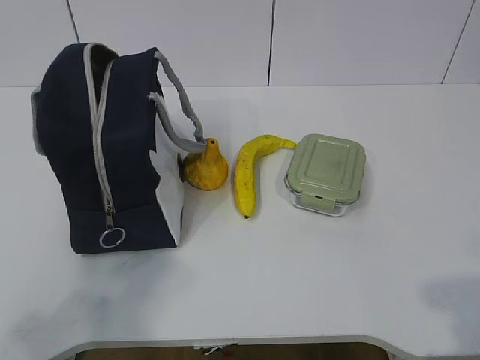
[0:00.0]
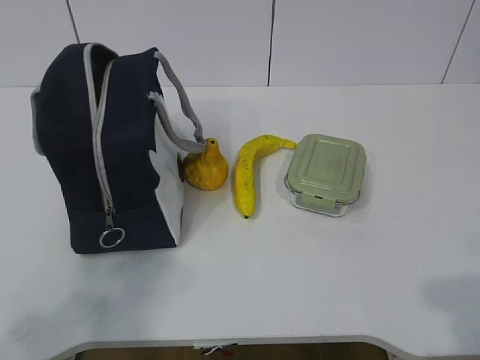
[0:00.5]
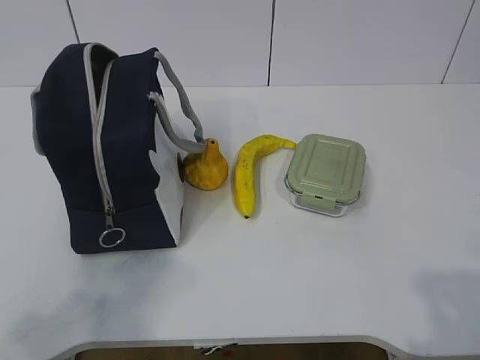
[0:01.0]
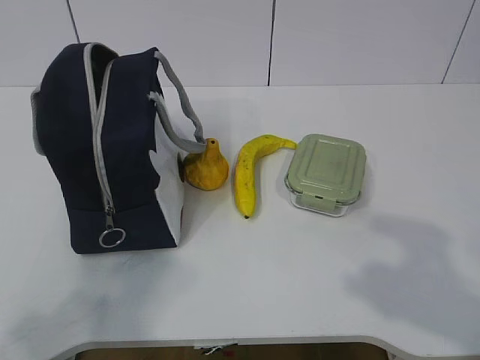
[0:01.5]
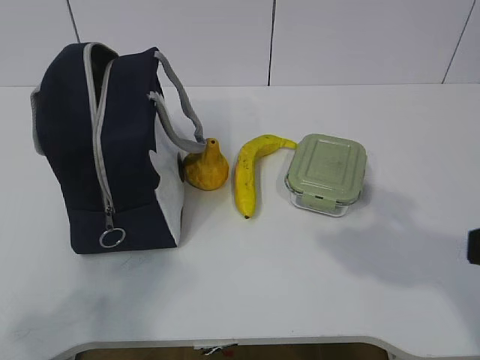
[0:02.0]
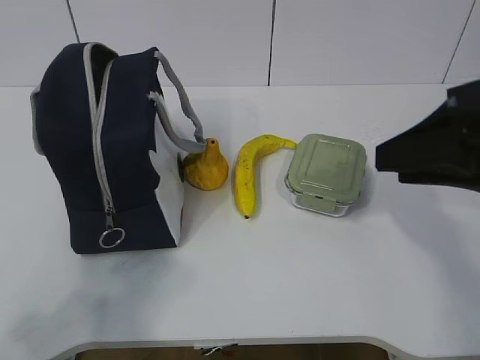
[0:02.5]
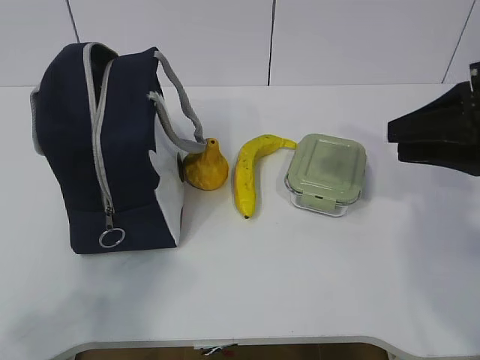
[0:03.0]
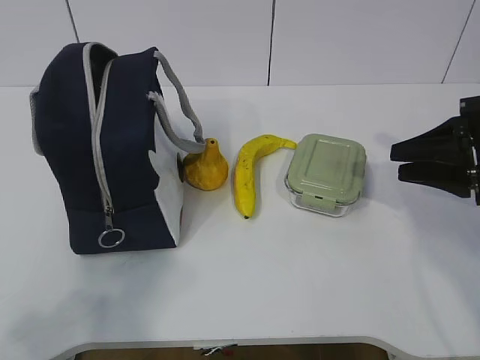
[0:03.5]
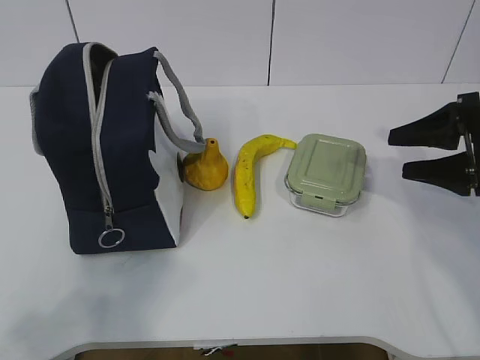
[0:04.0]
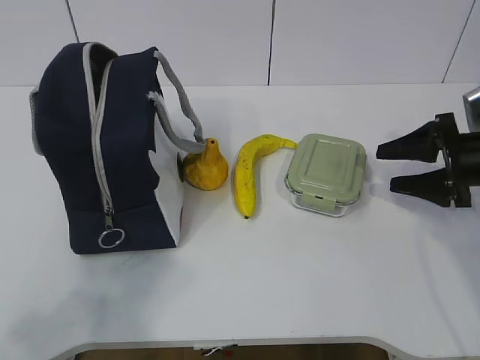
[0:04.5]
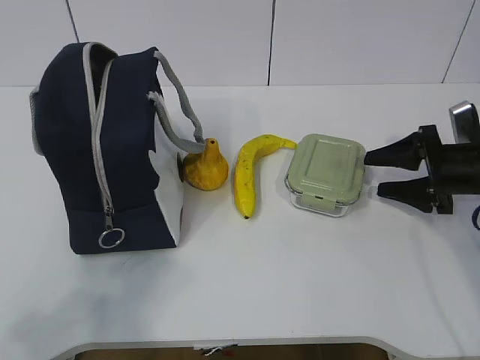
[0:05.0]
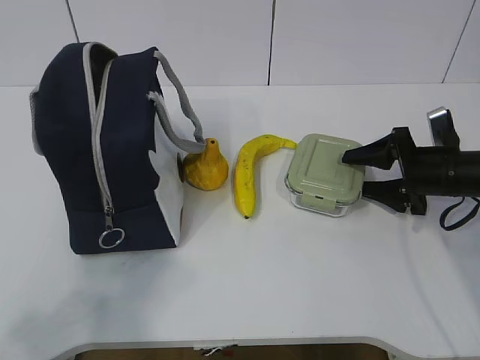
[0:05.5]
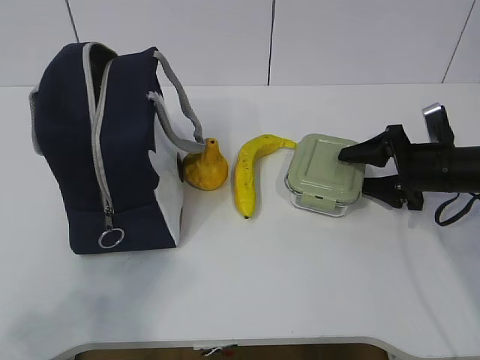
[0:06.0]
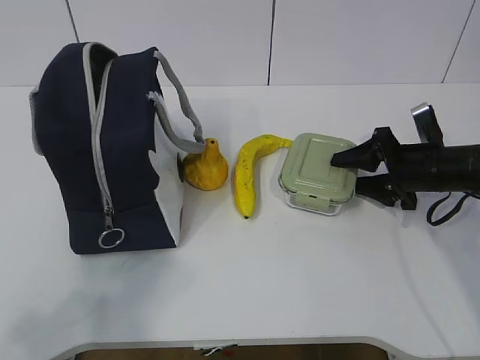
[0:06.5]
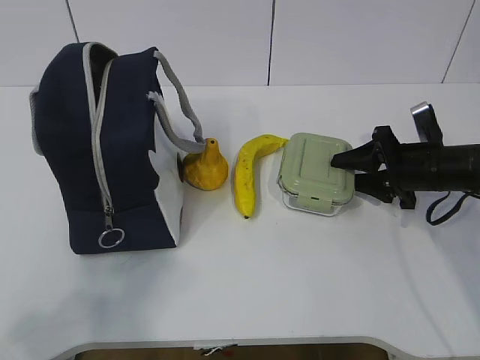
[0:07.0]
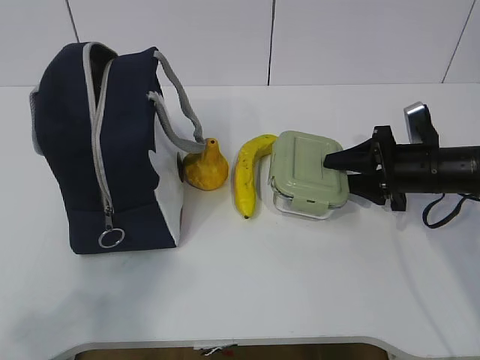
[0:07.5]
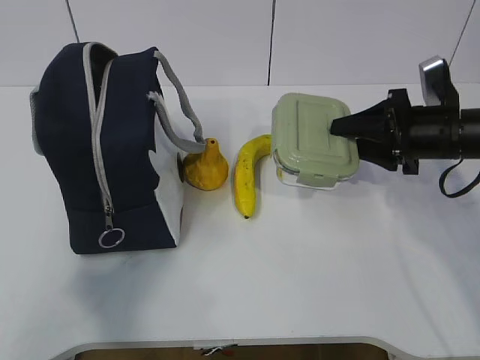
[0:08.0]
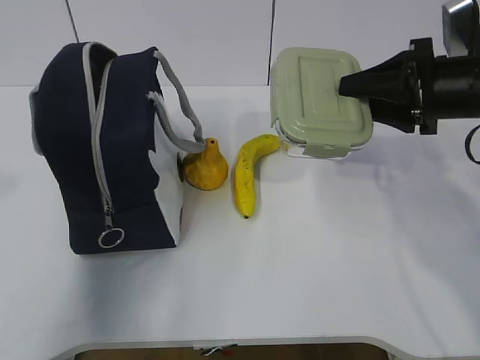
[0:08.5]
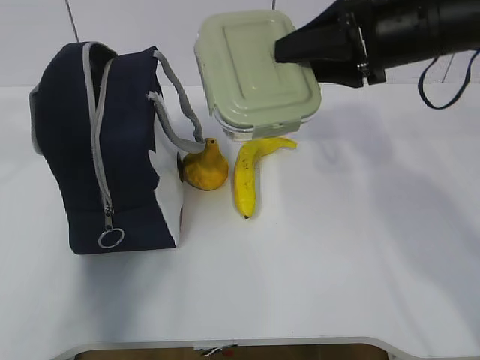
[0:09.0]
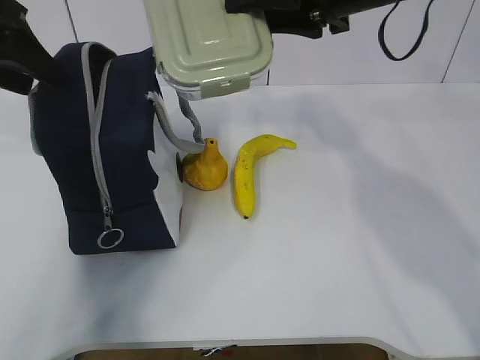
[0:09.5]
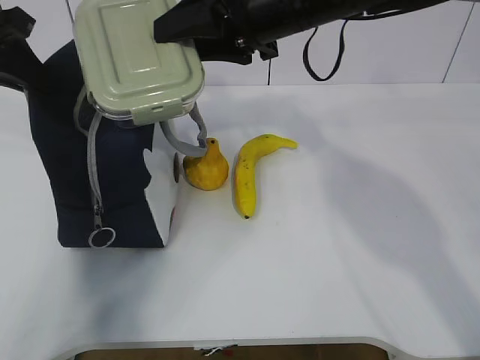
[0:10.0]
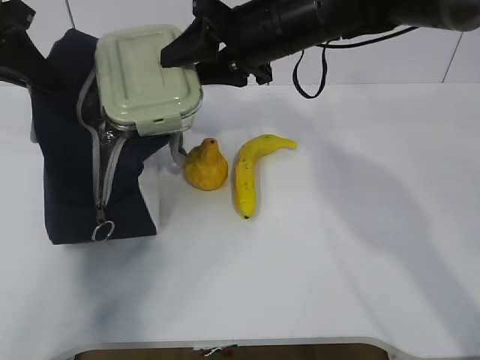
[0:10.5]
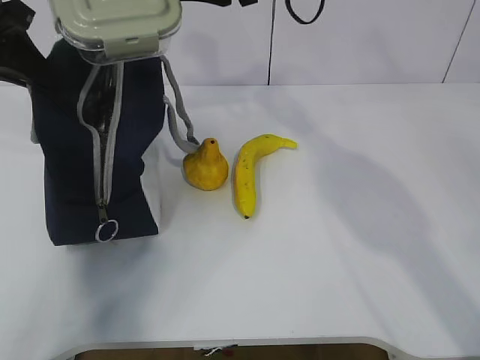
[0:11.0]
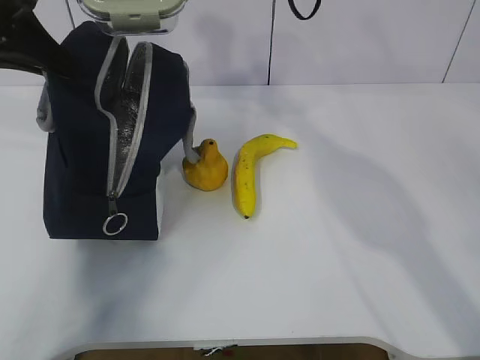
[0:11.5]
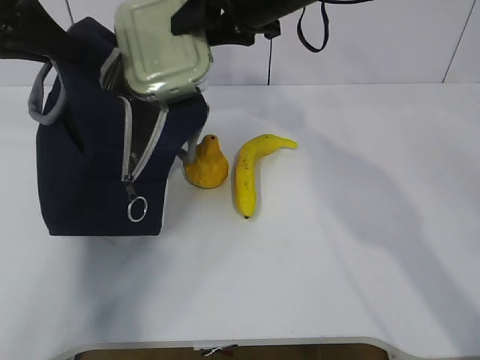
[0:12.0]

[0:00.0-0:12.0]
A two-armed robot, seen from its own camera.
Step, 0:00.0 to 0:05.5: Grab the lunch box with your right hand.
Step, 0:06.5 to 0:08.0: Grab the lunch bag with your left hand.
0:02.0 to 0:04.0: The right gripper heads forward and downward, covering approximately 25 cm, and opens its fingers.
0:04.0 to 0:06.0: The right gripper shifts approximately 10 cm downward and forward.
0:06.0 to 0:08.0: The right gripper is displaced upward by roughly 5 cm.
0:08.0 to 0:10.0: The right gripper heads to the left and upward, covering some 25 cm, while the left gripper travels forward by roughly 35 cm, and closes up.
0:10.0 to 0:12.0: The right gripper swings up and down, about 10 cm each way, with 2 reversals.

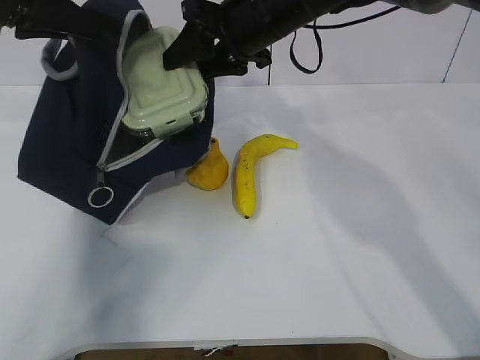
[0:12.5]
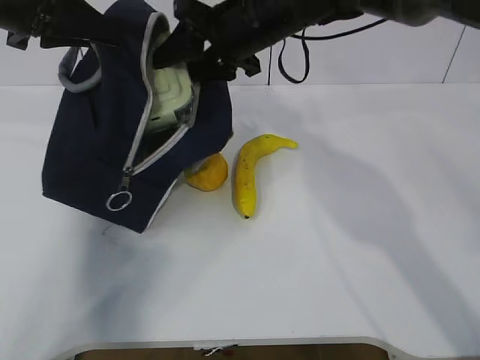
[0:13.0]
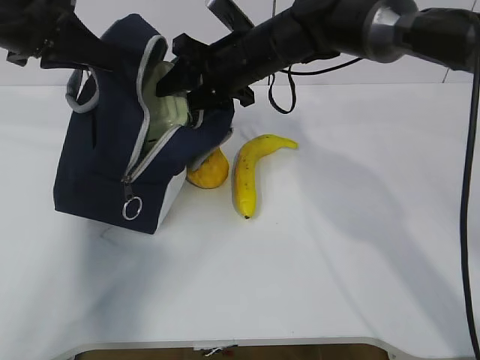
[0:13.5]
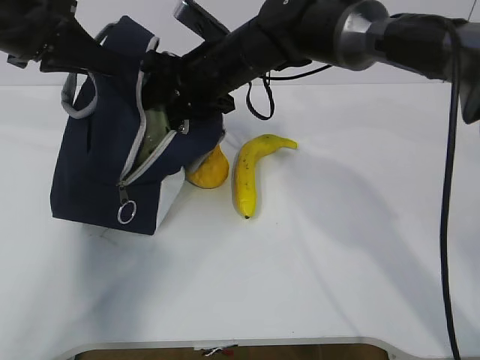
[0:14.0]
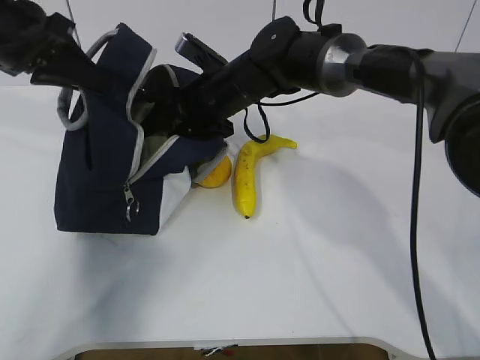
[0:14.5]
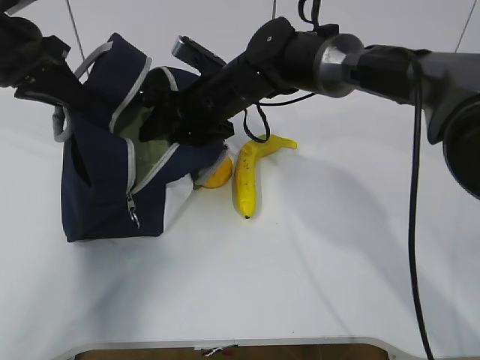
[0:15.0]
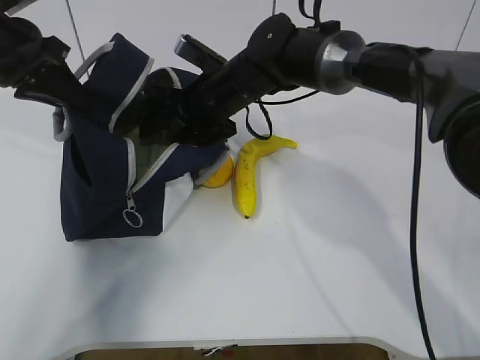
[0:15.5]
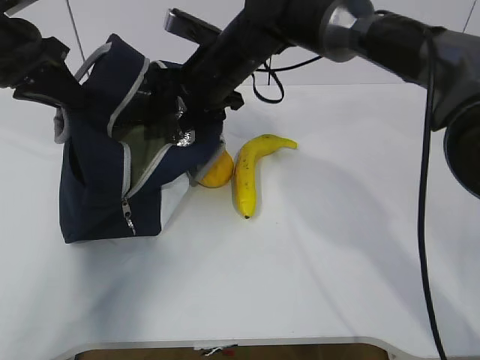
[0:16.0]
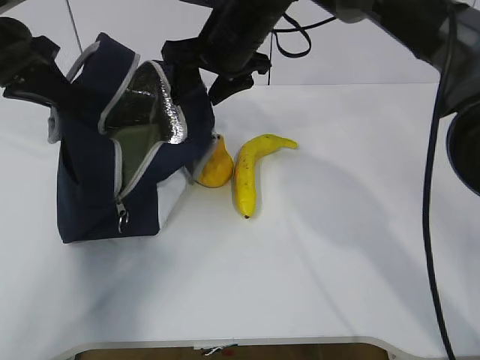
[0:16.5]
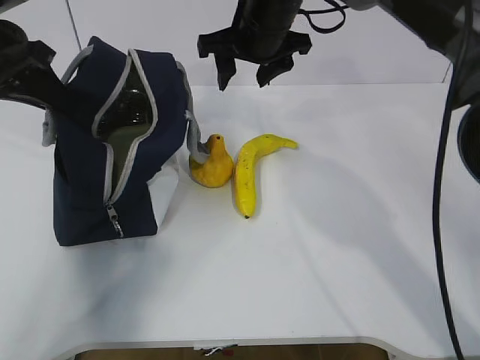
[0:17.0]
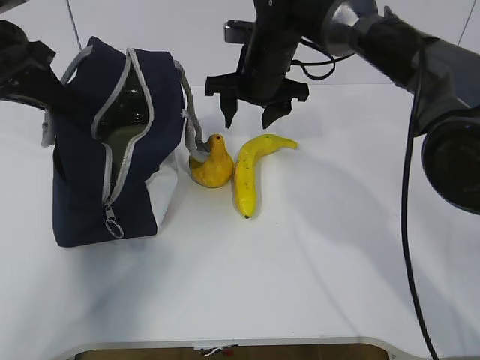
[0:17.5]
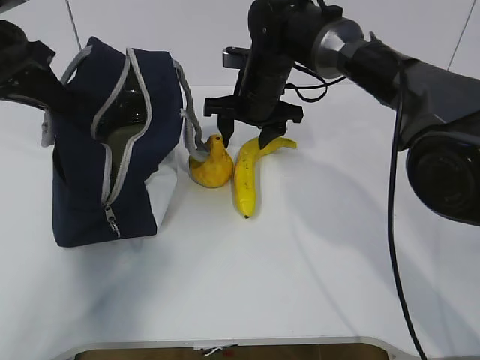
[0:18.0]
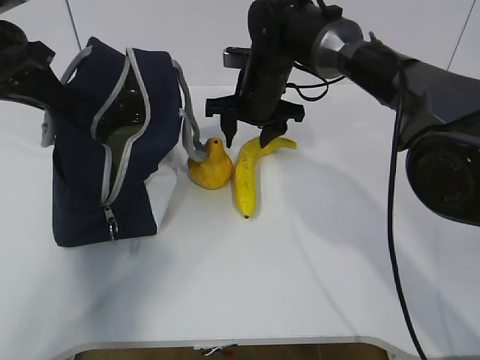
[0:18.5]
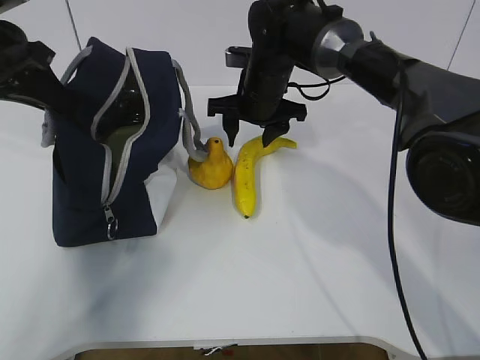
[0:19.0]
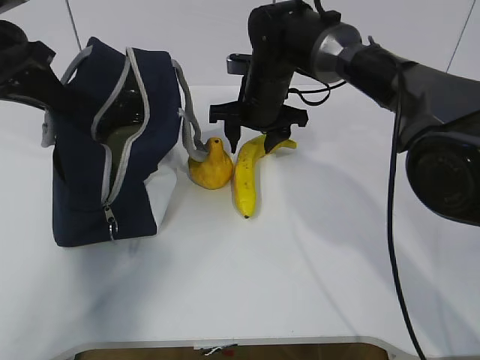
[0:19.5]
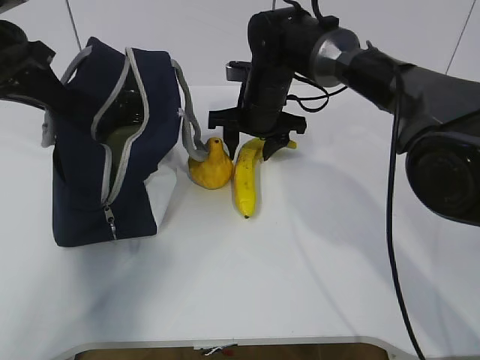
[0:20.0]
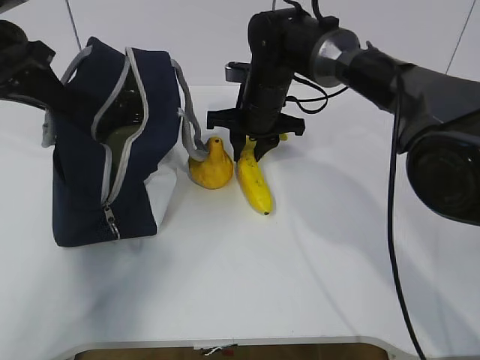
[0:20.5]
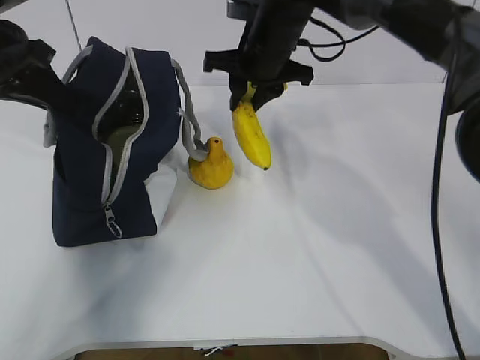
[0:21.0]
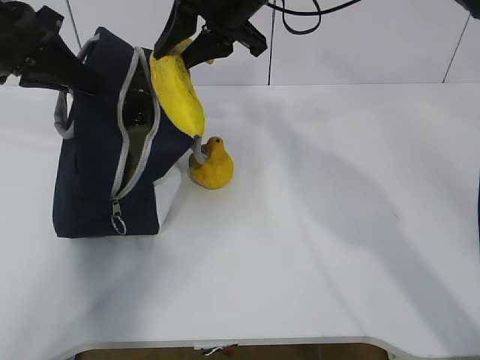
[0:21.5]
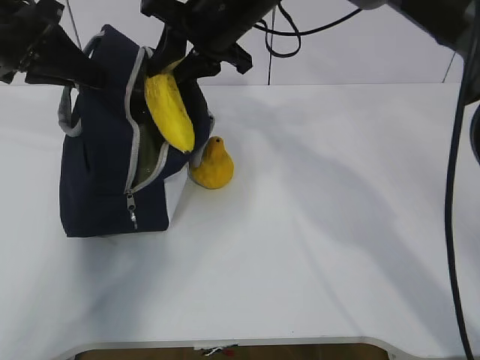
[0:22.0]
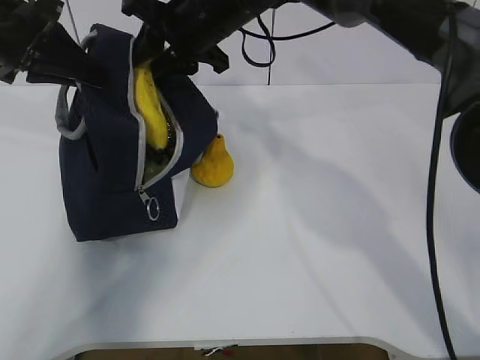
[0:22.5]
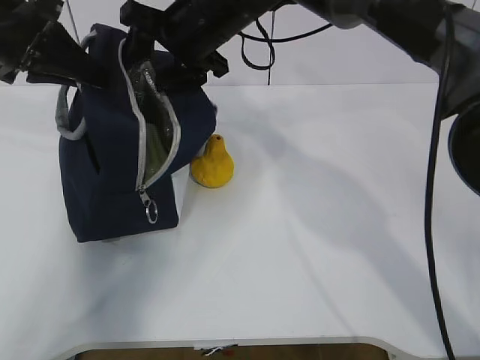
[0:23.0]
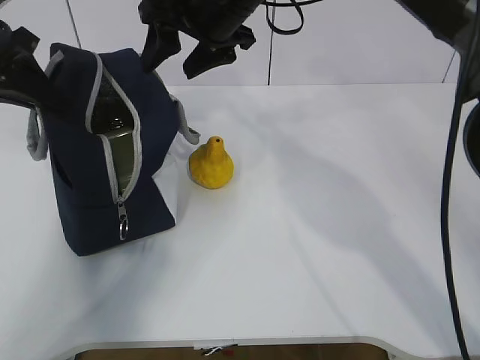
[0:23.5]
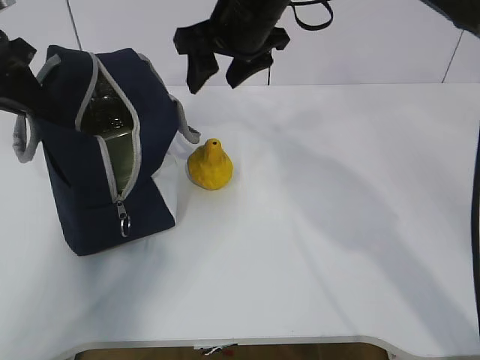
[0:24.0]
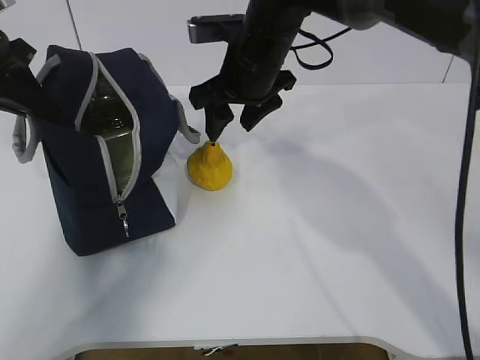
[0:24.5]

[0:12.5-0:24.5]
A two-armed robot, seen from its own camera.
Step, 0:13.5 to 0:17.0: Grab the banana with your right hand.
Step, 0:17.5 to 0:19.0: Place it into the bag with your right hand.
Step, 0:19.5 to 0:21.5: Grab the pear with your right hand.
Step, 0:22.0 to 0:23.5: Secure the lunch bag with your left hand.
0:12.5 to 0:14.5: The right gripper moves downward and to the left, approximately 10 cm.
0:14.5 to 0:16.5: The right gripper shifts some 10 cm upward.
0:16.5 to 0:18.5: The right gripper travels downward by roughly 10 cm.
0:18.5 to 0:20.5: The right gripper closes up.
0:20.5 to 0:22.5: The right gripper goes roughly 15 cm upward and to the left.
0:22.5 to 0:24.5: The right gripper changes place by roughly 5 cm, and opens its fingers.

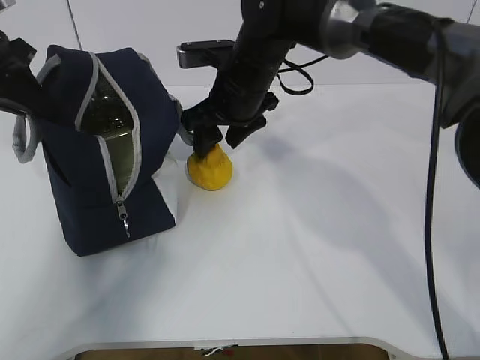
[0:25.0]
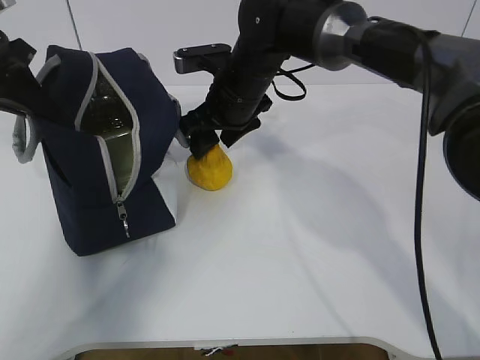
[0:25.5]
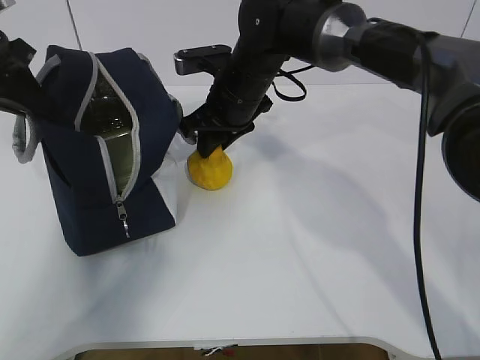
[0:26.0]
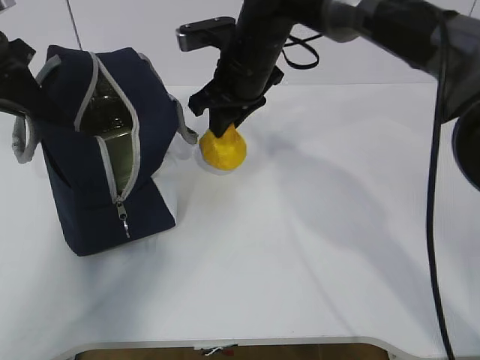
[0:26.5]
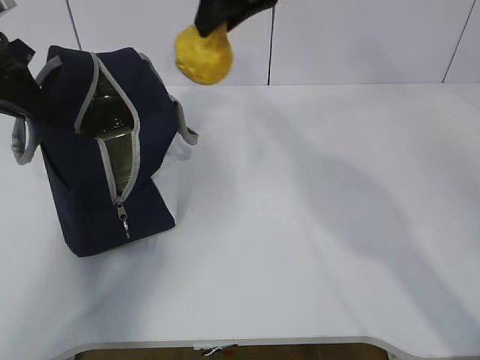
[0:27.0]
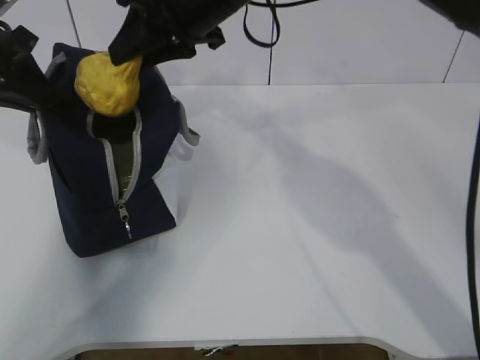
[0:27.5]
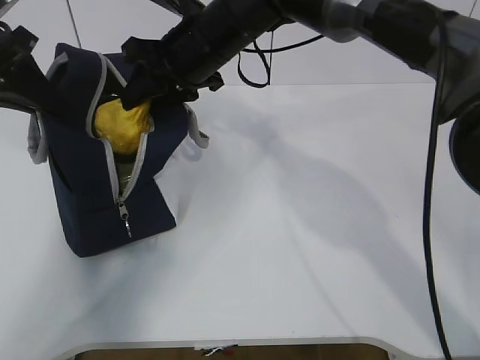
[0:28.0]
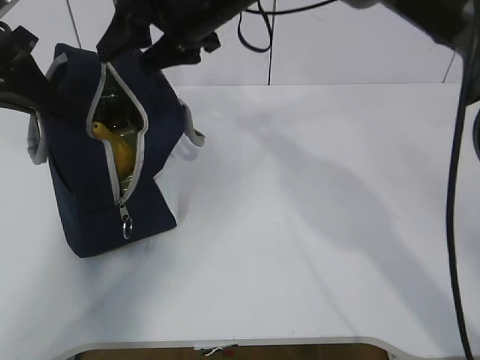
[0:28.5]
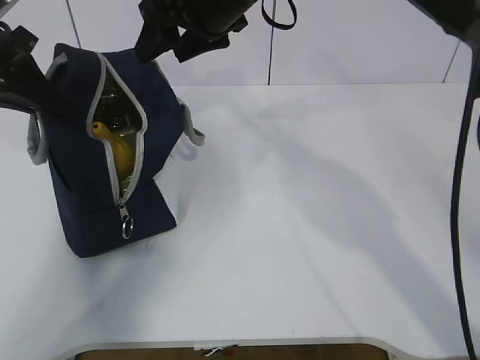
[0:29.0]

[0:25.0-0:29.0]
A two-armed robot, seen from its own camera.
Step, 0:25.0 to 0:27.0: Move the lunch bag to the right.
0:25.0 to 0:27.0: The right gripper travels upward by approximately 15 cm, and closes.
0:27.0 to 0:29.0: The right gripper goes some 5 cm downward, and opens.
